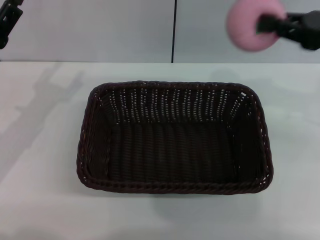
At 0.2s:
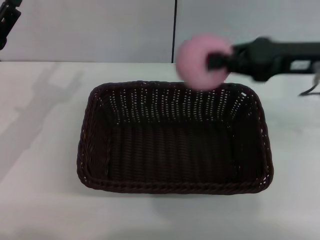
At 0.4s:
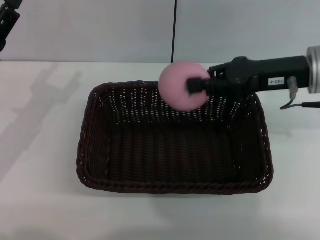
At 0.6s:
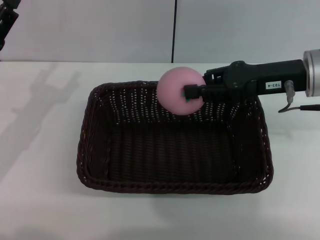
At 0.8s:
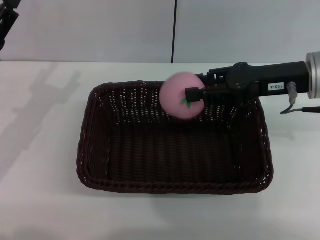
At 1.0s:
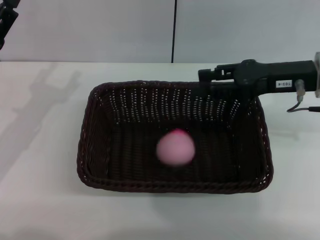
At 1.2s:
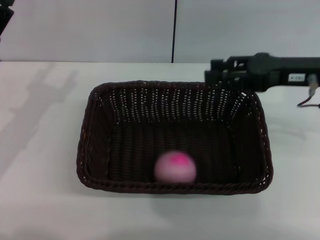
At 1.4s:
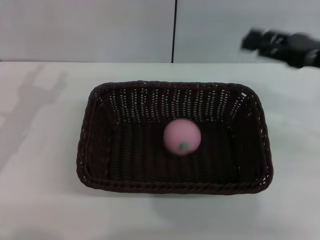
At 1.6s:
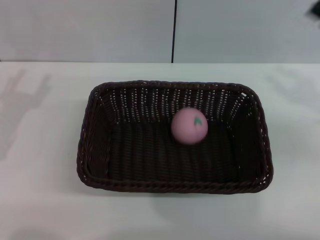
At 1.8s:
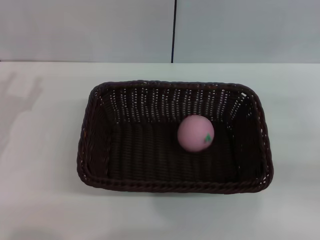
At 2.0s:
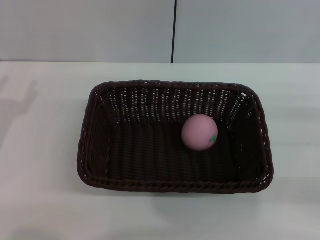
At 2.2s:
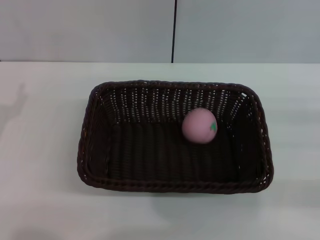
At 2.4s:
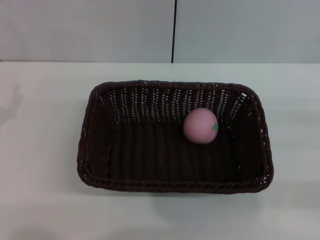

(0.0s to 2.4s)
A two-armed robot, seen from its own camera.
0.0s - 1.2s: The right gripper shifts approximately 5 cm to the left, and opens its fingers.
1.2s - 2.4s: The left gripper goes roughly 5 cm backward. The right gripper moves to the right, backward and downward, about 20 cm.

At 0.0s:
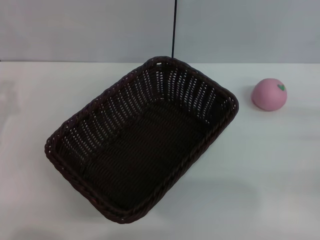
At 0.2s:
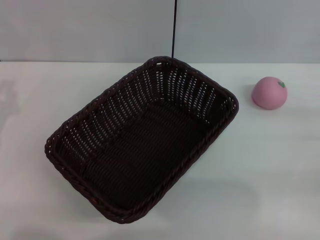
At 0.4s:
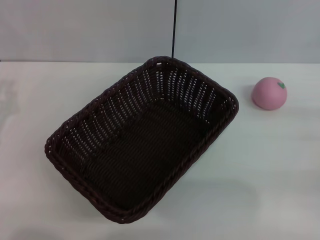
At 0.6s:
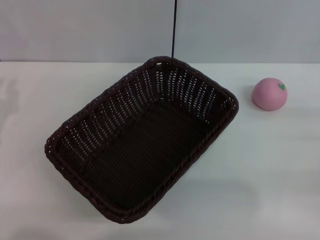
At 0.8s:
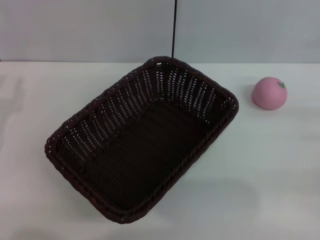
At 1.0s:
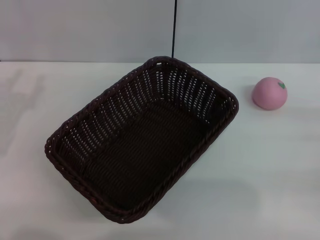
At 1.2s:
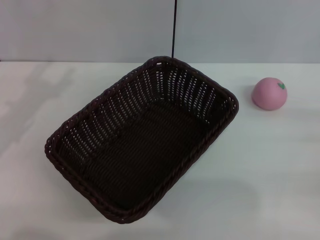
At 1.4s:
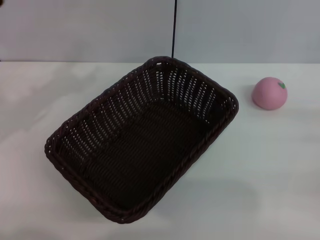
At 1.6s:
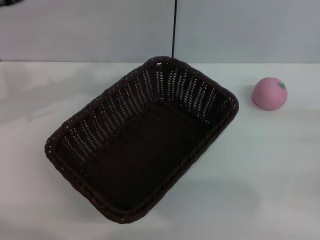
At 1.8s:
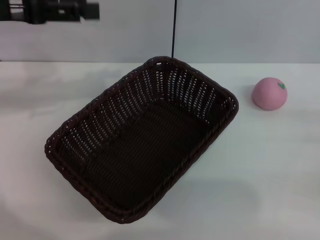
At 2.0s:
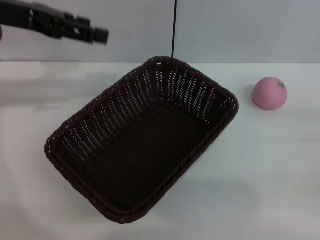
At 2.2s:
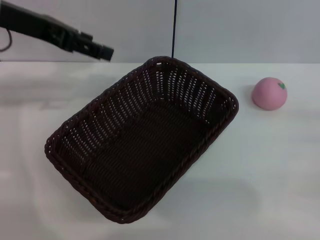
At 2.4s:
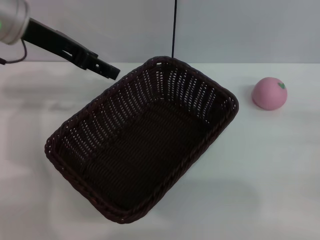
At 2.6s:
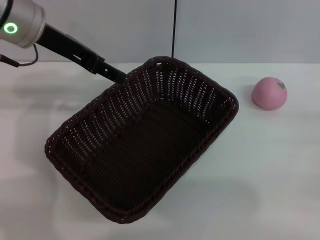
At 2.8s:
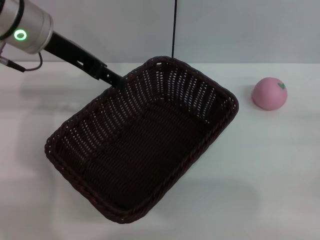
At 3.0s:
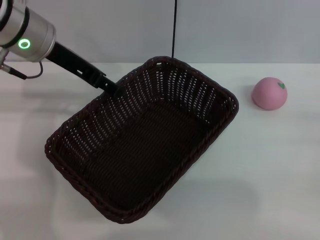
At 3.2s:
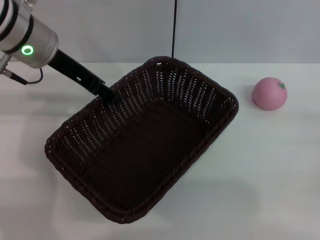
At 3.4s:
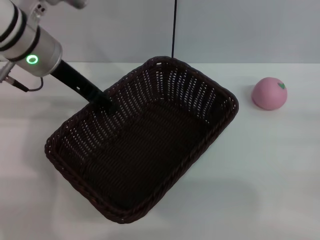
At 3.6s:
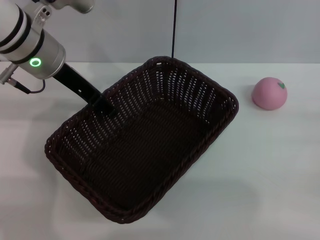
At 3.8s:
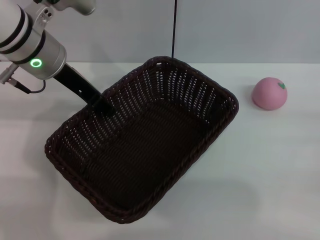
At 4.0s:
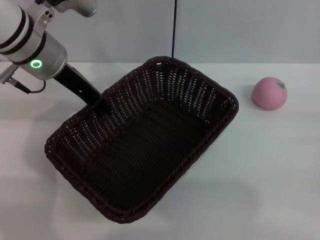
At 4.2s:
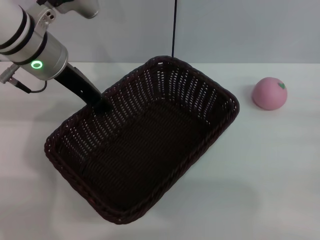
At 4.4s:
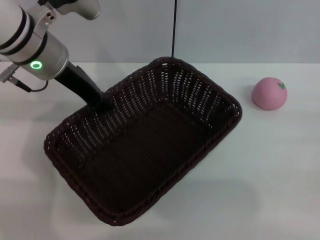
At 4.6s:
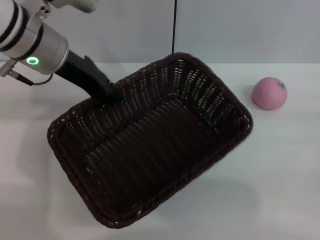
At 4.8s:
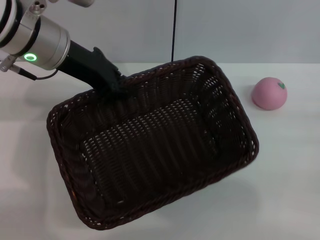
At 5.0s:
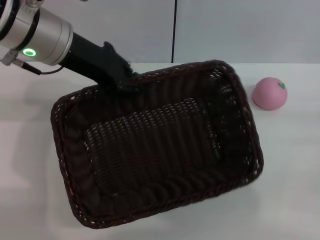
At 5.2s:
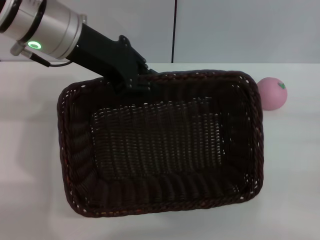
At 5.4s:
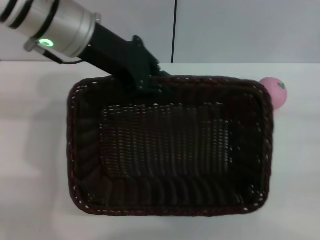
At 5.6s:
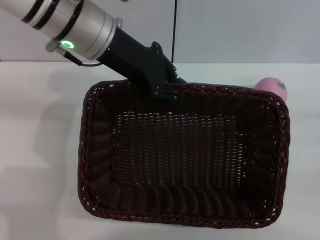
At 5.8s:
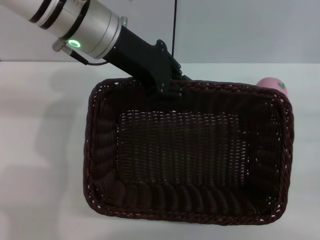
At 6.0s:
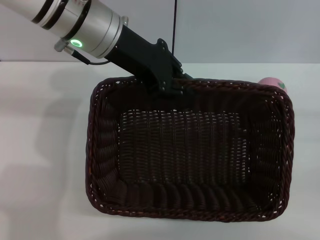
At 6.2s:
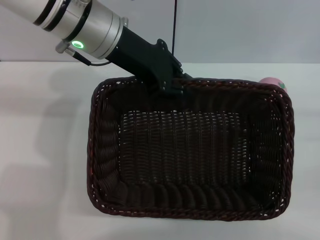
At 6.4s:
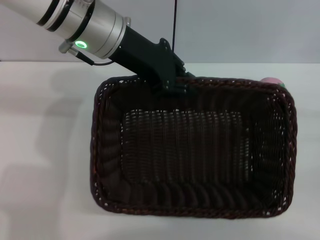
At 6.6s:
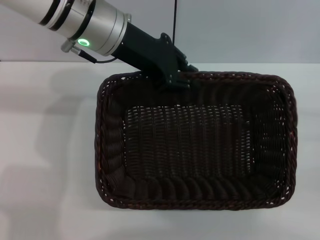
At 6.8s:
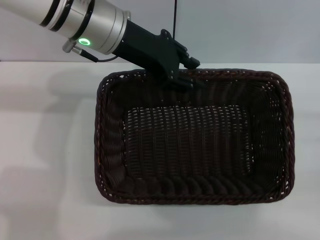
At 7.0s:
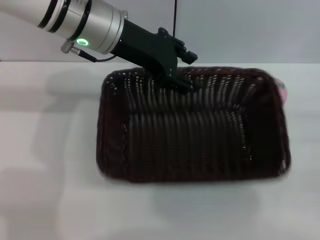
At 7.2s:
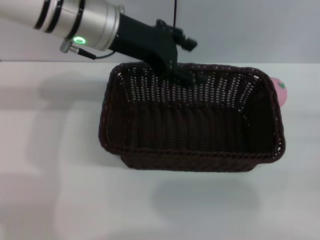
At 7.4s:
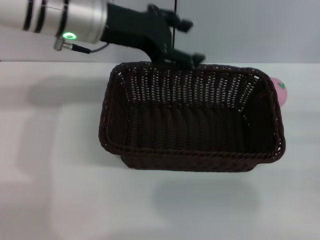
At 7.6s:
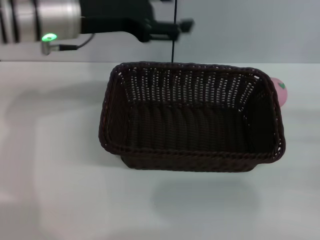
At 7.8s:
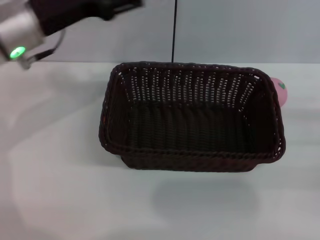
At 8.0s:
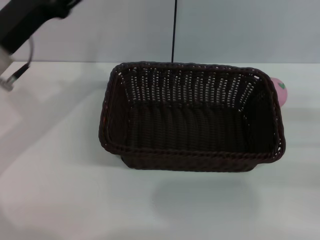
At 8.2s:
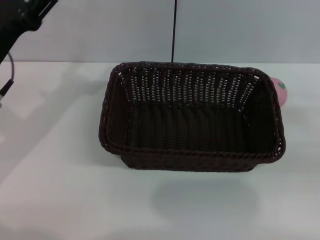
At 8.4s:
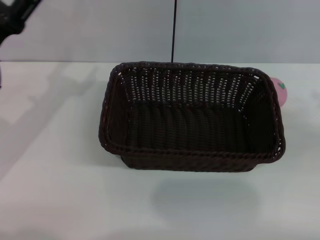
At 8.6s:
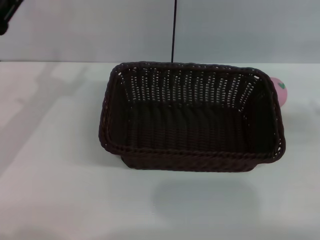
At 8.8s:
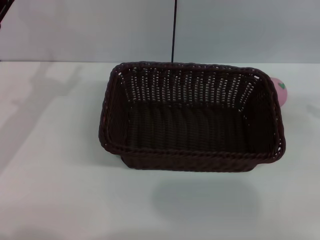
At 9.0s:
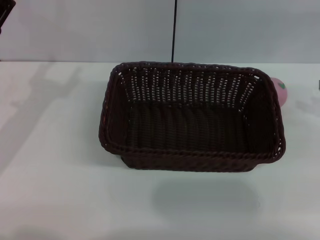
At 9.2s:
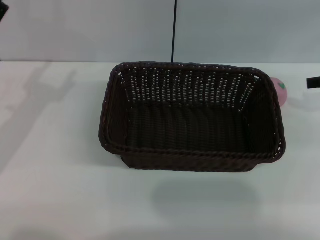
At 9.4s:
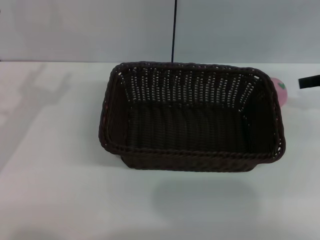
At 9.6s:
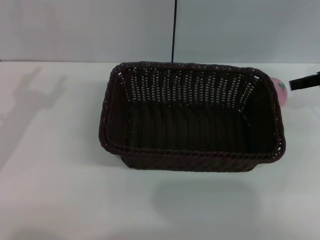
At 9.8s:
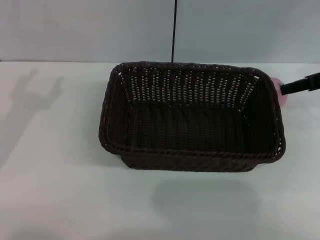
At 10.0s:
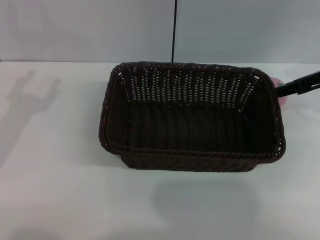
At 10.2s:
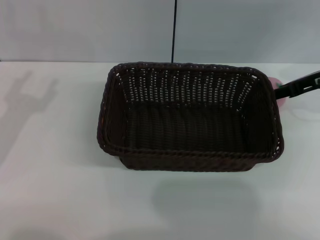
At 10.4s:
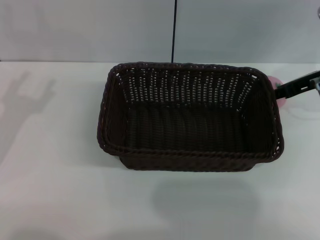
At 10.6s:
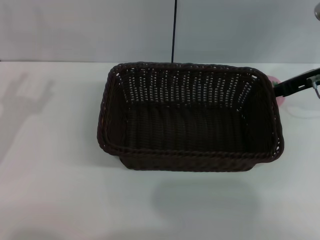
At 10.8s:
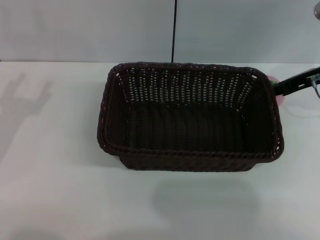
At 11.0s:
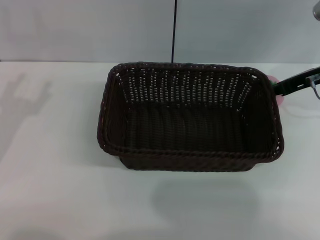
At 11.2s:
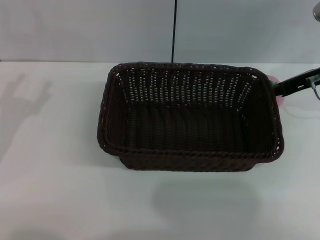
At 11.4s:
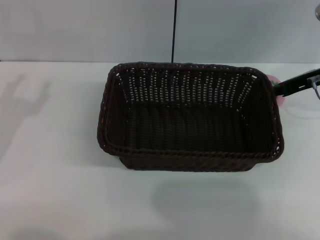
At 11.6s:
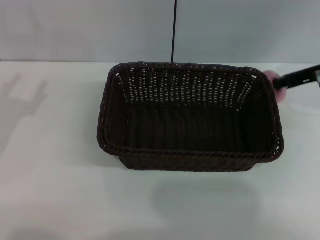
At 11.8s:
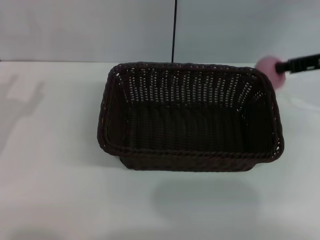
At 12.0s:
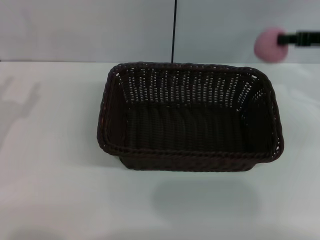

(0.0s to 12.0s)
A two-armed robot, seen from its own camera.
Step, 0.0s - 4.8s: Pick up the dark basket with the left gripper.
Step, 5.0s - 7.4s: Place the dark basket in the center of view with the right gripper.
1.6s - 3.0s: The left gripper goes roughly 10 cm to the right.
3.0s - 4.4s: The left gripper closes up.
4.4s - 6.0s: The left gripper goes some 5 cm to the right.
6.0s - 7.6s: The left gripper is displaced to the left by roughly 5 cm, and opens.
7.6s - 9.0s: The left gripper is displaced to the left, downward and backward by about 20 cm. Meanwhile the right gripper is displaced upward and forward by roughly 15 cm.
9.0s - 10.4s: The right gripper moves to the left and forward, roughly 10 cm. The left gripper moves about 5 cm.
10.4s - 12.0s: The right gripper closes its fingers.

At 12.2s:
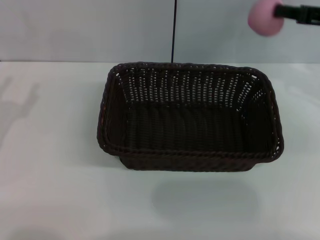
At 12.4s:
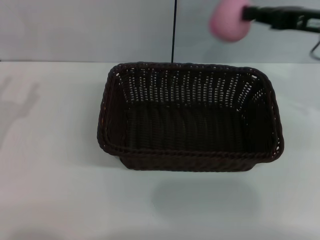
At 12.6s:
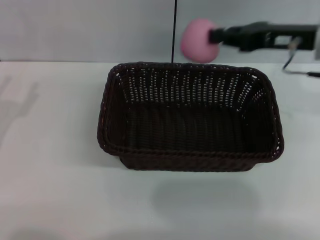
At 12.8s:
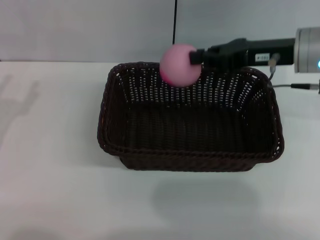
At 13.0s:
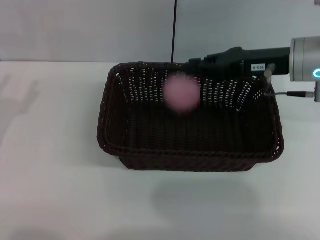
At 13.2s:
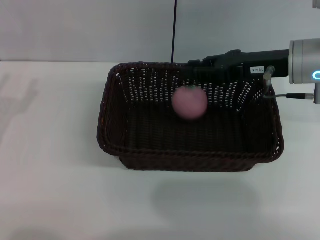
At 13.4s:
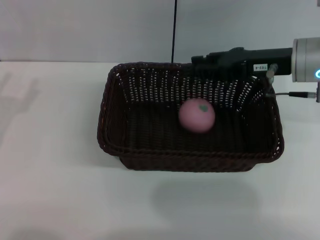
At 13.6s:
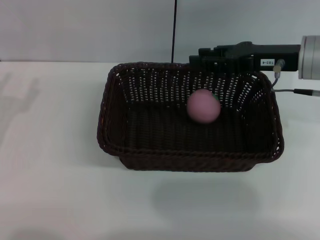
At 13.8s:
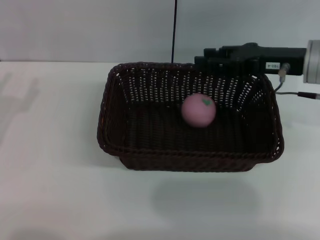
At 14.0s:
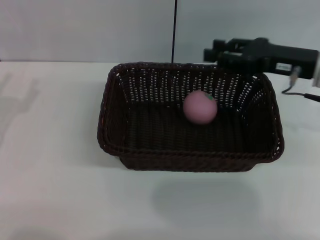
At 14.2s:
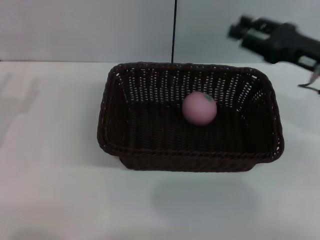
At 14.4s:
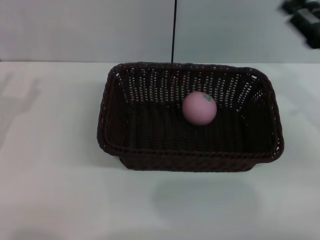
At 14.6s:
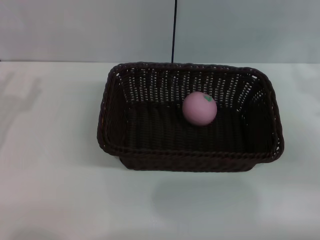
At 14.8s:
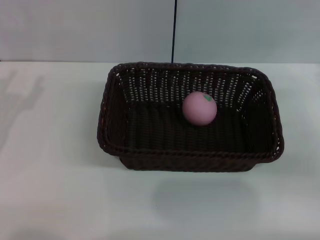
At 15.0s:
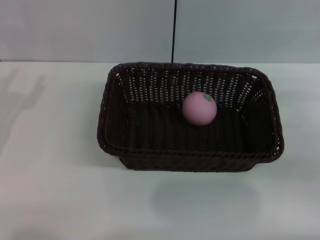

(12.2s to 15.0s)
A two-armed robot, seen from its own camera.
12.2s - 13.6s: The right gripper heads to the left, covering roughly 10 cm, and opens.
13.6s - 15.0s: The right gripper moves to the right, backward and downward, about 15 cm.

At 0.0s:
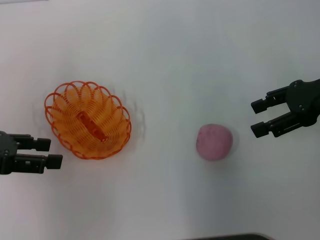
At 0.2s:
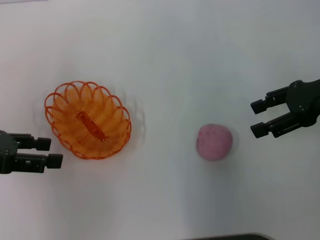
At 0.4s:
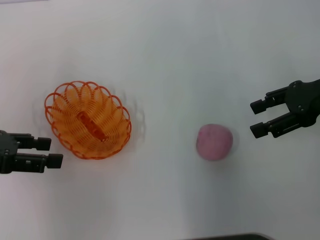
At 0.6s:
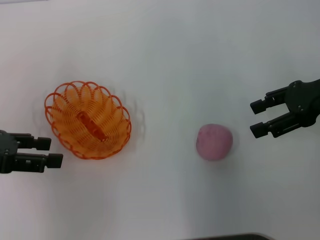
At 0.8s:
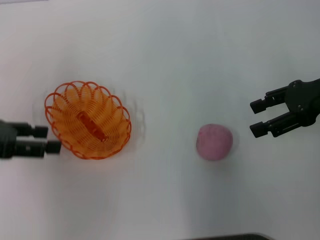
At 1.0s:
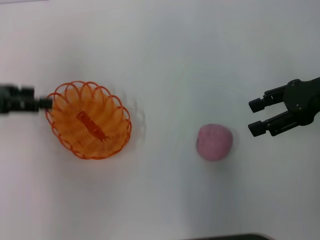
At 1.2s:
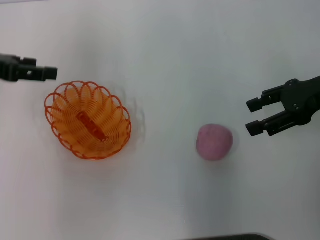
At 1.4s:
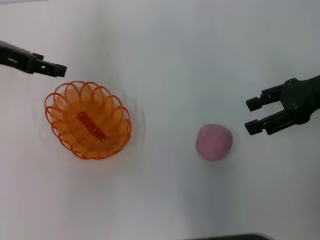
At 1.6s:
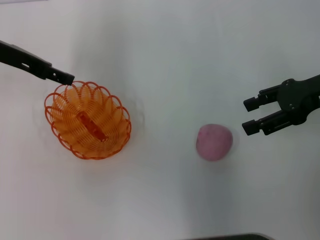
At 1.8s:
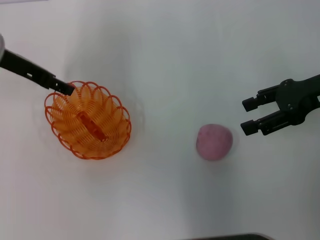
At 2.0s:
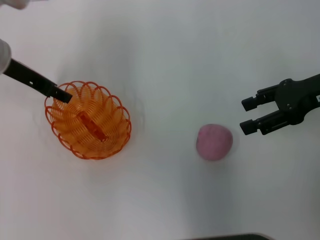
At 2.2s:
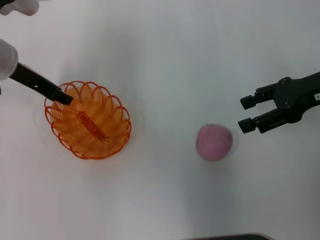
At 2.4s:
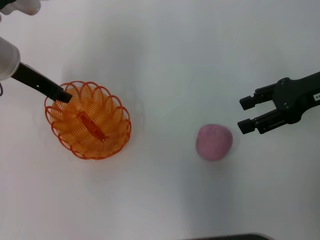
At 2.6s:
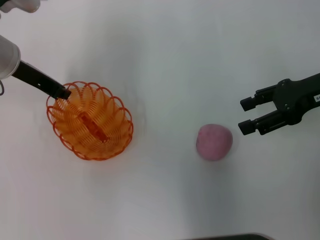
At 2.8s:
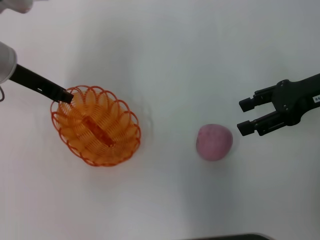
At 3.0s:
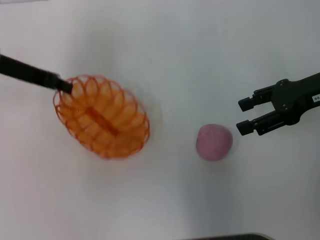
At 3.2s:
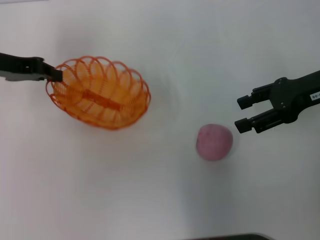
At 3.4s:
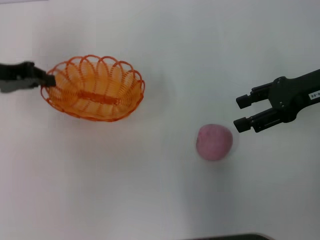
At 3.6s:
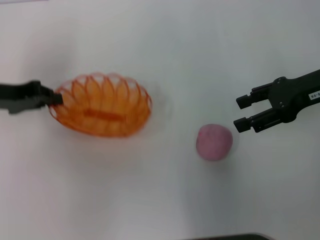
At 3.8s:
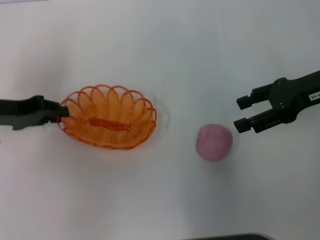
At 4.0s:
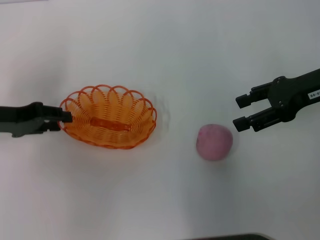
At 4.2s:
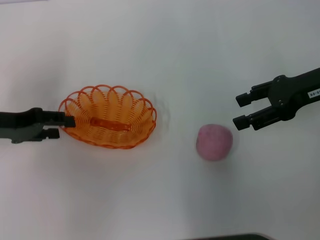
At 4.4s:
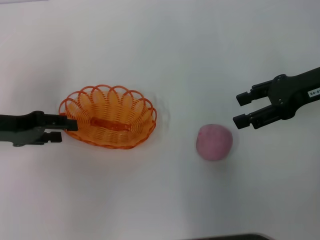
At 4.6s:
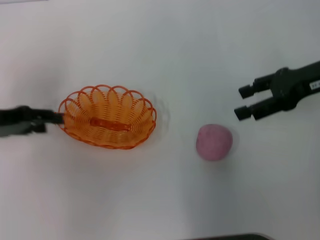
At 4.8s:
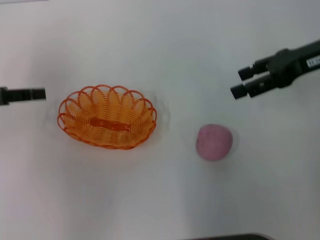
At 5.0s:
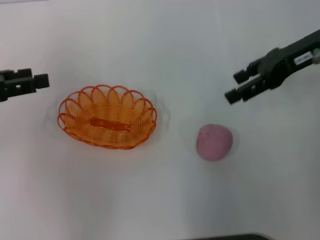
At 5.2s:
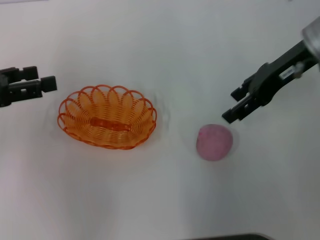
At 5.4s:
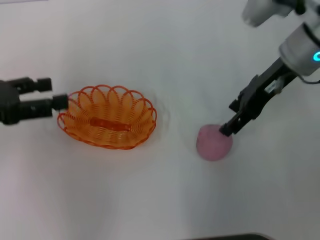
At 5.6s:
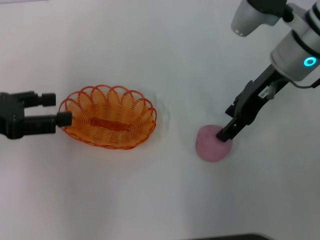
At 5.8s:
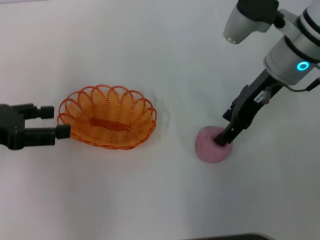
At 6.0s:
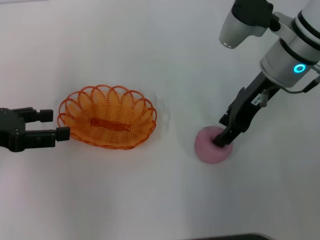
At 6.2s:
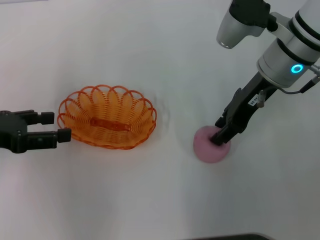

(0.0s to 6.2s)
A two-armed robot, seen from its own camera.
Step, 0.0s - 3.0s: Pick up the basket with the left gripper.
Step, 3.2s - 4.6s: Place the basket in the center of view with the left gripper.
0.0s - 1.6s: The left gripper is displaced forward and to the right by roughly 15 cm.
1.6s - 3.2s: The left gripper closes its fingers.
3.2s - 4.6s: The left gripper shifts approximately 5 cm backward, and opens up.
4.6s - 6.2s: The right gripper moves to the left, some 10 cm.
